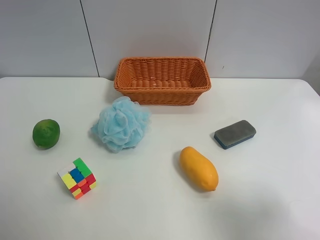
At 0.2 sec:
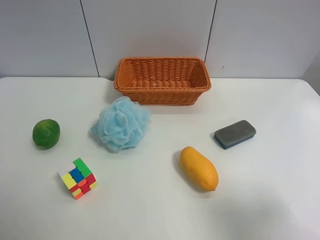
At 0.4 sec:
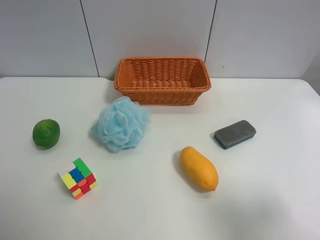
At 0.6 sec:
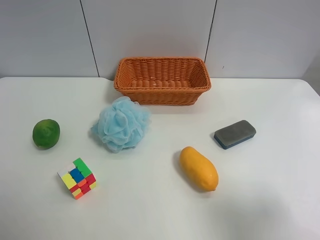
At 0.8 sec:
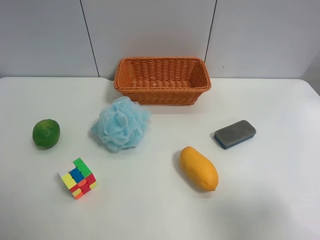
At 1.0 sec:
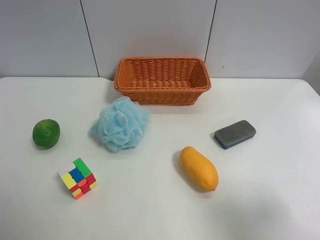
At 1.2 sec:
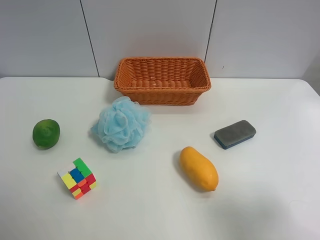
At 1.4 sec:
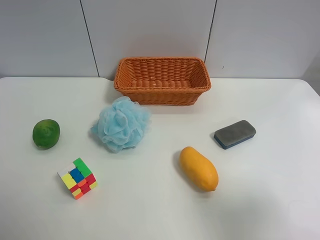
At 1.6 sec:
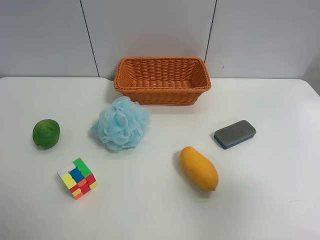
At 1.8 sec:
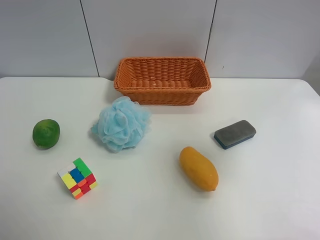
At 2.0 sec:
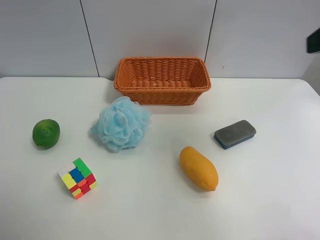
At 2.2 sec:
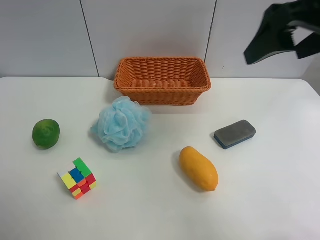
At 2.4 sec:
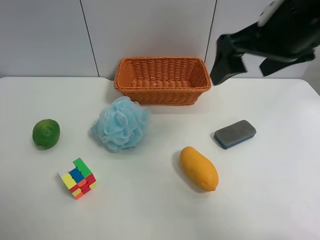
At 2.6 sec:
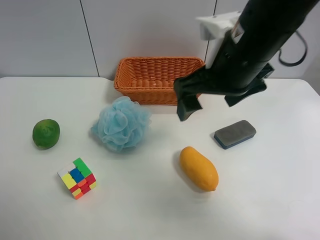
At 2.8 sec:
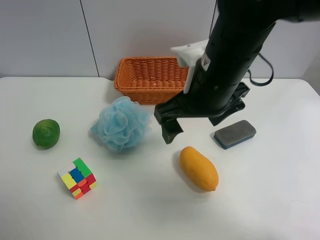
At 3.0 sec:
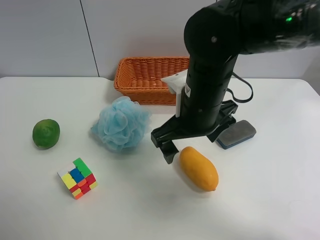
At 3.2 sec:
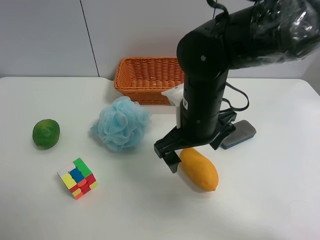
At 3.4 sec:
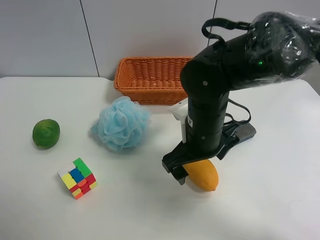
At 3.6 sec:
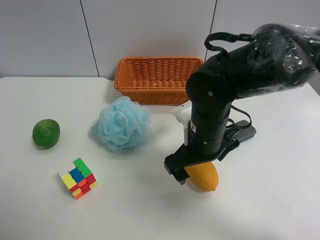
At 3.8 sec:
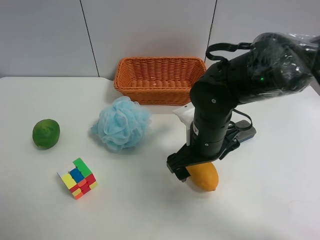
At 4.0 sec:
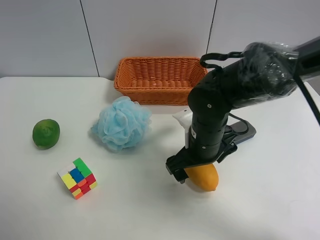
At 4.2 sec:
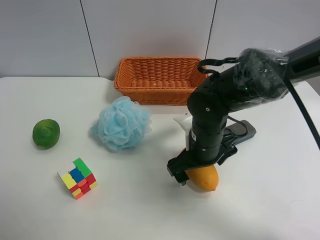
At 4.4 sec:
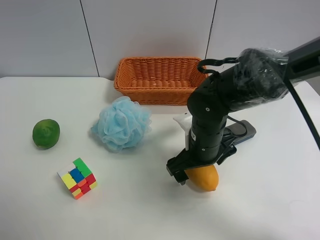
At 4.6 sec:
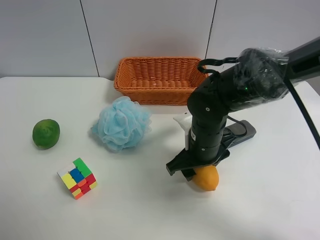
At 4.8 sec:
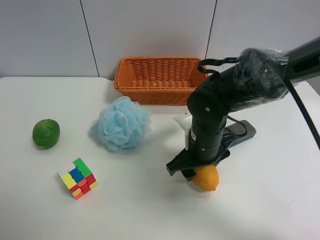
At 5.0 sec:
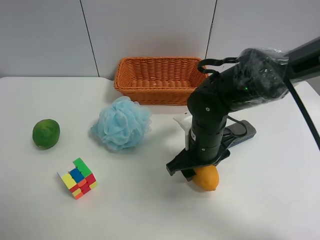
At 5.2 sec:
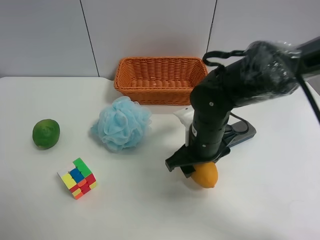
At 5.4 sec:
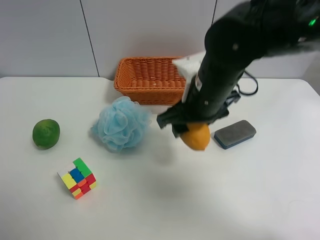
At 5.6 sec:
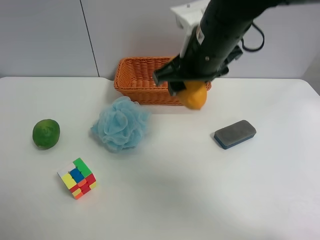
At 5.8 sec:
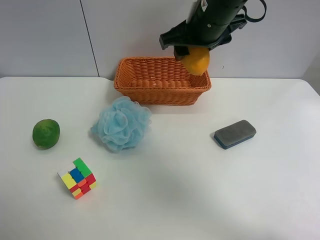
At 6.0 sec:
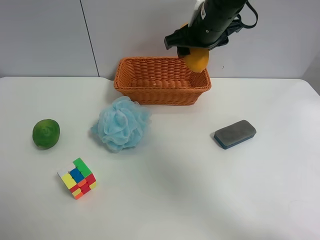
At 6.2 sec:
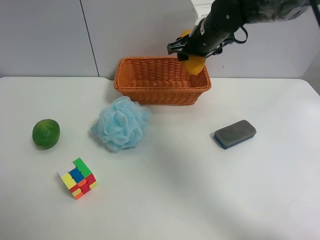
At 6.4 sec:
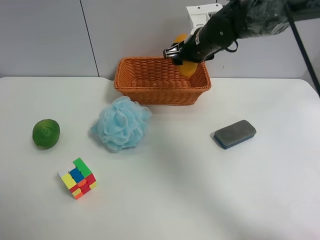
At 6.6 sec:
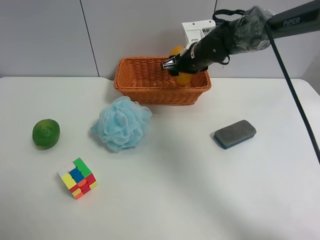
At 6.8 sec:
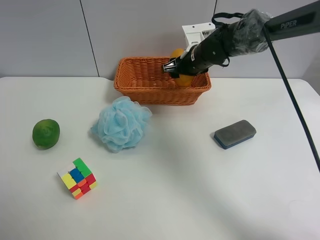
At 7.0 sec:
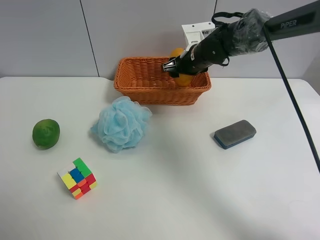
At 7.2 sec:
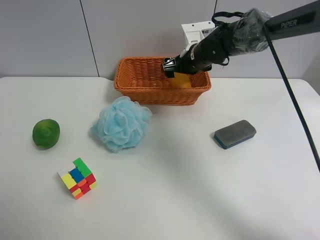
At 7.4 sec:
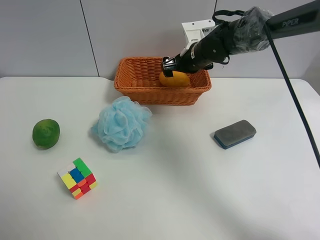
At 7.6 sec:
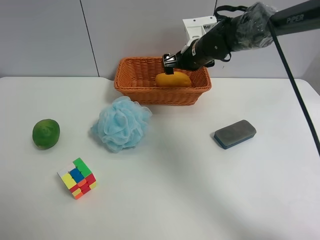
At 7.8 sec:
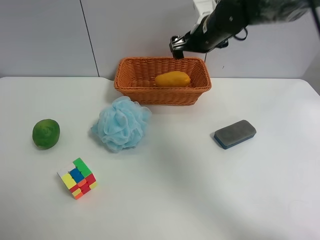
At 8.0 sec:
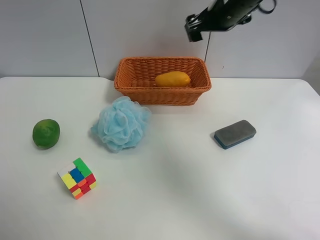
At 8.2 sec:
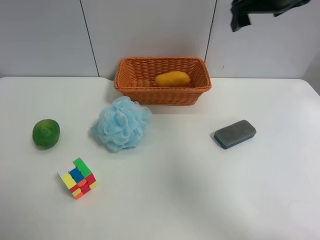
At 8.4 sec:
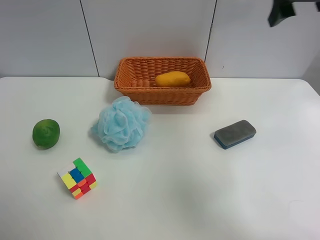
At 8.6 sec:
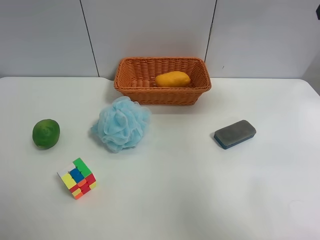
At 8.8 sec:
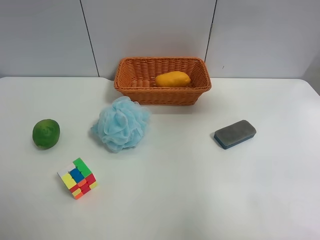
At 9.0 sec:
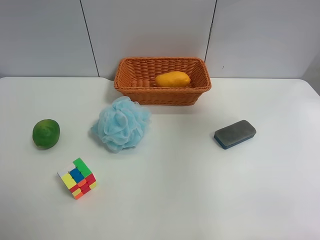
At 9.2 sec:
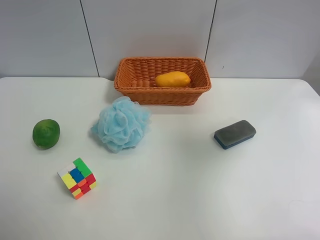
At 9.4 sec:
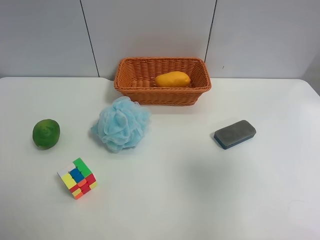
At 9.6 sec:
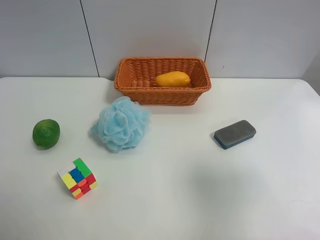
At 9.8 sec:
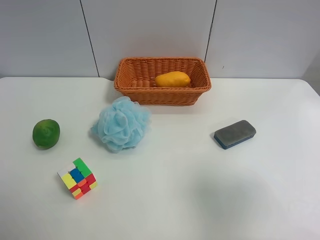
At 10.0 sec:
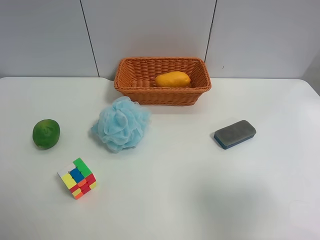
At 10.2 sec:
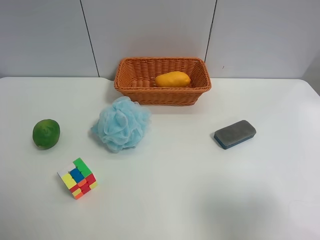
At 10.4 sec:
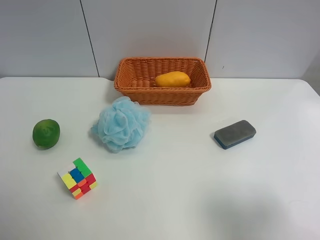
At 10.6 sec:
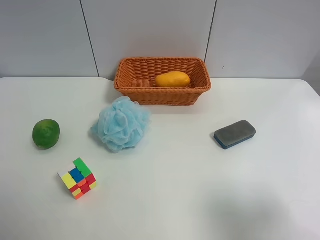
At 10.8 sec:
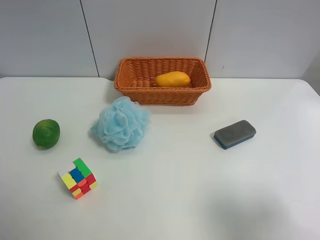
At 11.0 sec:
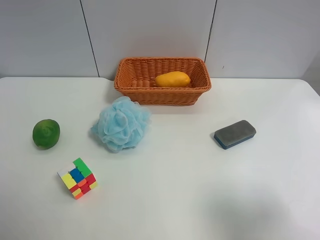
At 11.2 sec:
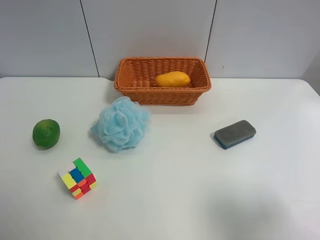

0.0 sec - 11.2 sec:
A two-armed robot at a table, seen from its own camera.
Task of the whole recording: Randomly grab green lemon or mangoes from the table and put them in a basket.
Step, 0.0 sec - 4.6 sec: Grasp the mango with the right gripper.
Step, 4.8 sec - 7.8 sec: Place the mango into the basket with the right gripper.
0.0 sec - 1.6 sec: The right gripper goes some 5 cm upward.
1.6 sec - 3.2 sec: The right gripper moves to the left, forward and downward, some 35 cm.
3.2 sec - 4.8 sec: The right gripper heads downward, covering approximately 5 cm, and closes its fingers.
4.8 sec - 6.4 sec: The right gripper goes some 20 cm forward and upward.
6.4 sec - 8.0 sec: The right gripper travels upward by approximately 10 cm, and opens its fingers.
8.0 sec - 9.6 sec: The right gripper travels backward by approximately 35 cm.
9.6 sec - 11.2 sec: The right gripper heads backward, covering approximately 5 cm.
